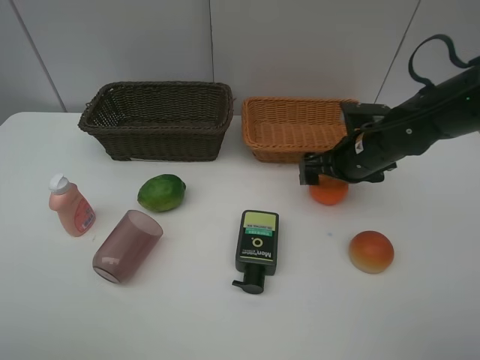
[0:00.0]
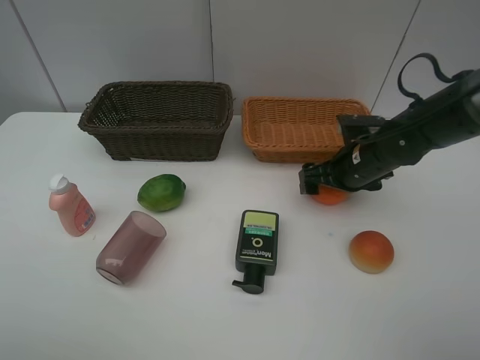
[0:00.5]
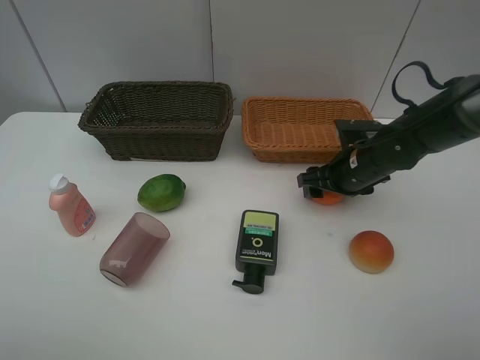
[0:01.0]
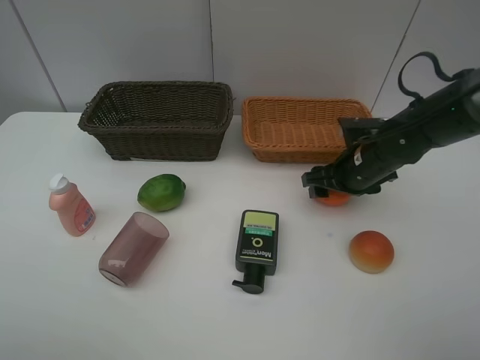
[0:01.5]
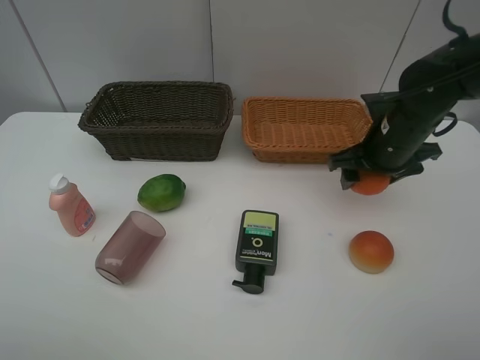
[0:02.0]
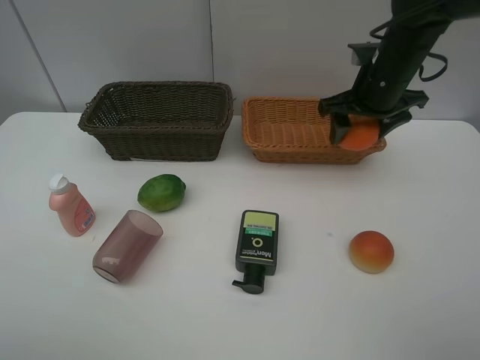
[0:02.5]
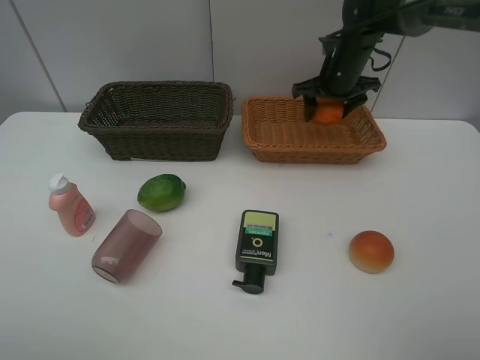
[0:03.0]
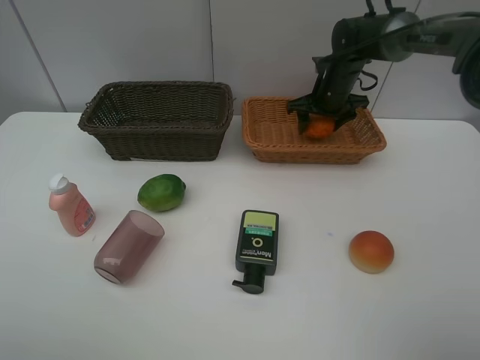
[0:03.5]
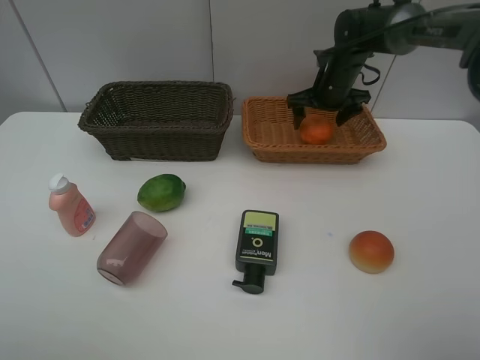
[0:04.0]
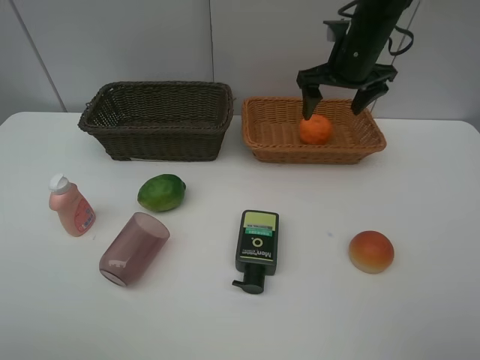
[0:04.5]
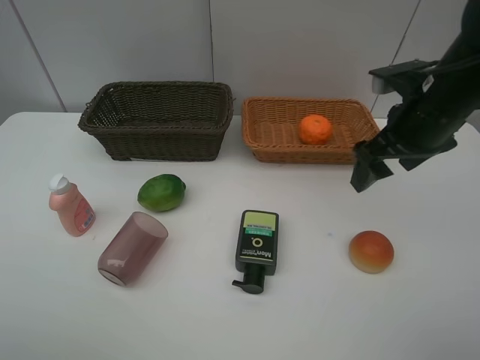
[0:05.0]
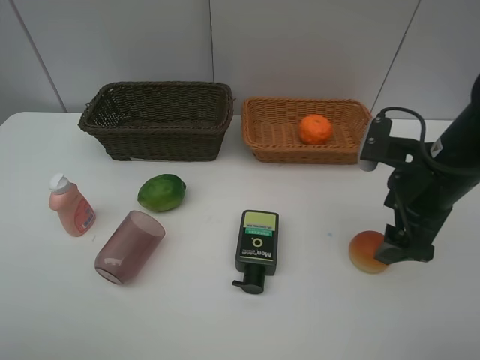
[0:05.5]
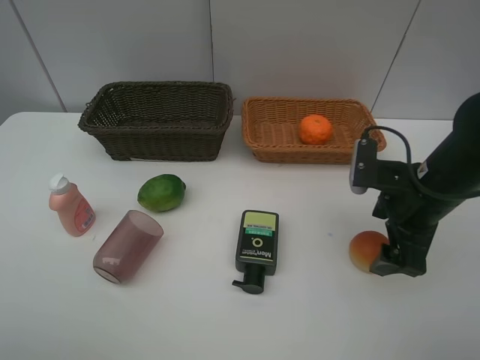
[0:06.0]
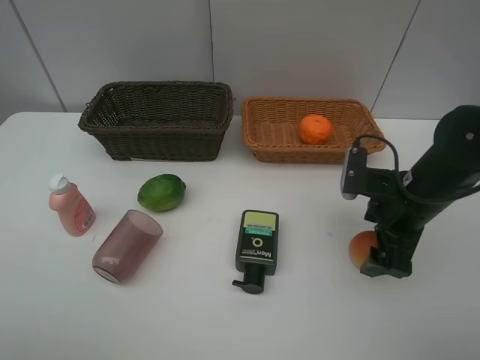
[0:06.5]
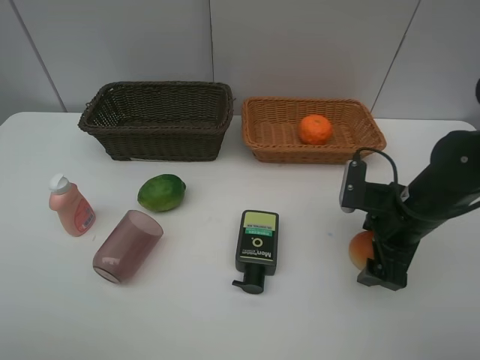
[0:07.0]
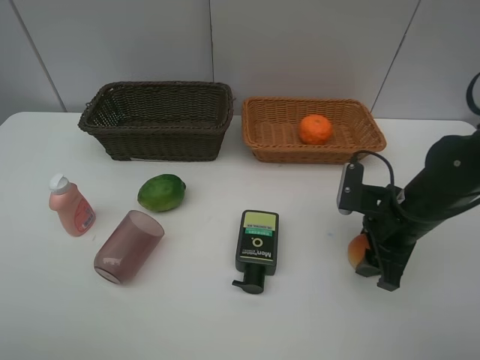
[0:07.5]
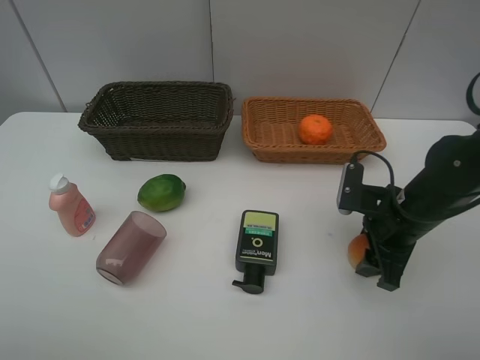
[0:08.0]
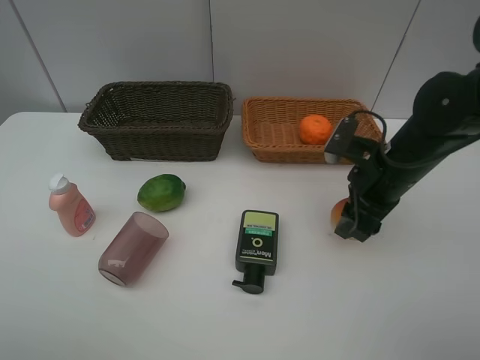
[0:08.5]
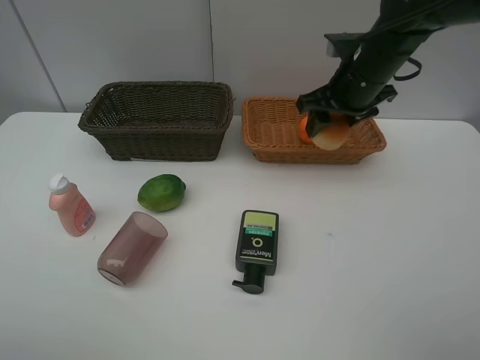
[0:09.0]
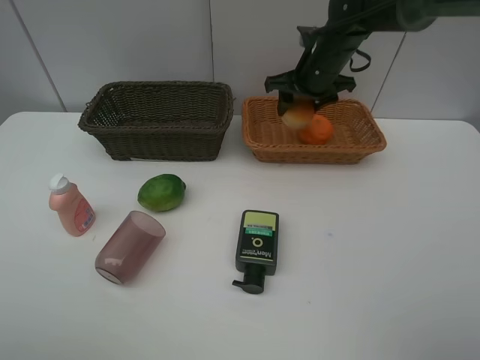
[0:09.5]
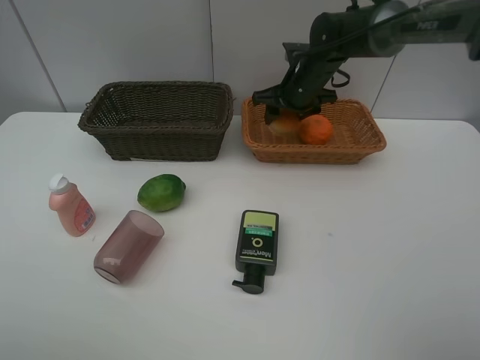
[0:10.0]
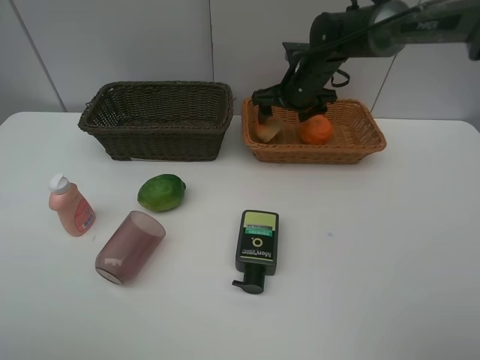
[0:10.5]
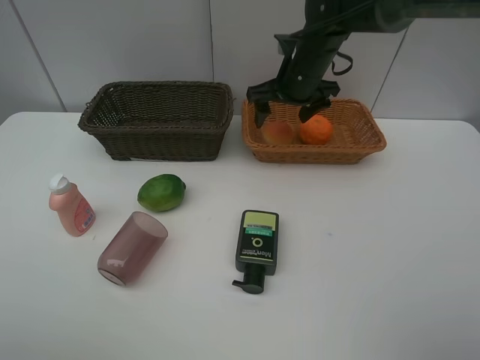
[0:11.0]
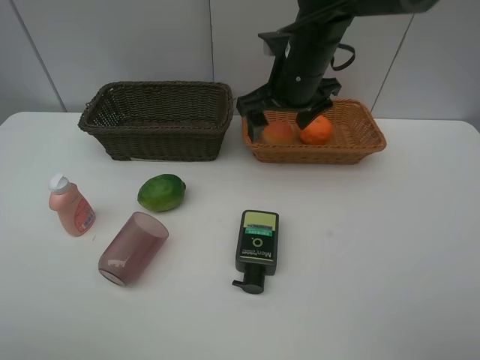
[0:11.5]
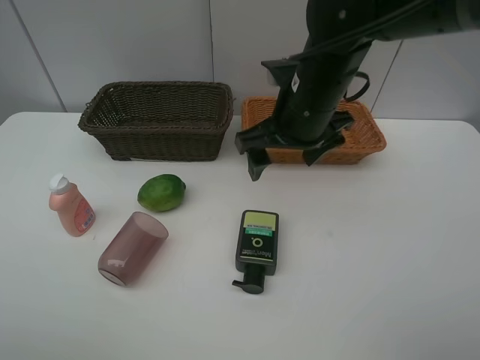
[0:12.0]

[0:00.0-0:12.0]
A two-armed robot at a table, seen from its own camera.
Task of the whole recording: place multiple objects separately in different baskets.
0.0 to 2.0 s: The right gripper is displaced upward by approximately 5 cm, and closes.
2.0 to 4.0 s: The right gripper heads forward, covering approximately 20 cm, and opens.
4.0 to 6.0 s: The right gripper is displaced backward by some 25 cm.
6.0 to 8.0 s: The right gripper closes.
8.0 to 10.0 s: The right gripper is displaced forward and to the left by about 25 cm.
10.0 to 12.0 s: The right gripper heads backward, covering about 15 cm, and opens its fingers.

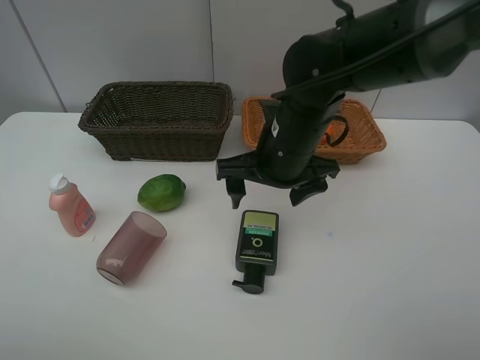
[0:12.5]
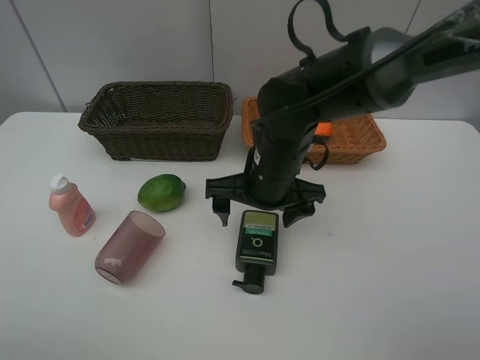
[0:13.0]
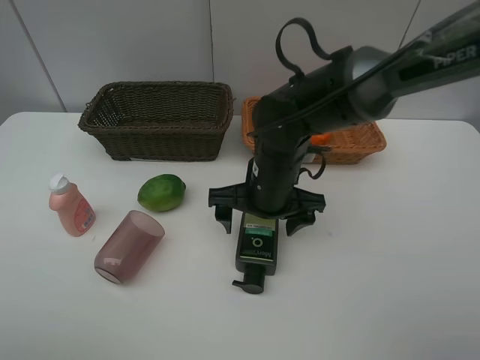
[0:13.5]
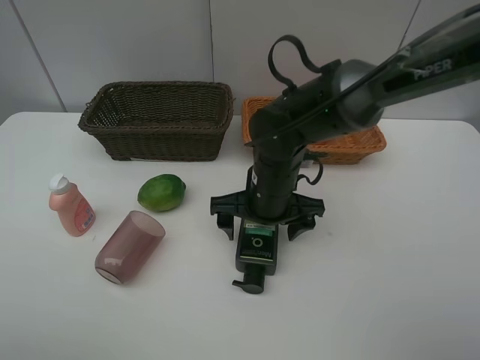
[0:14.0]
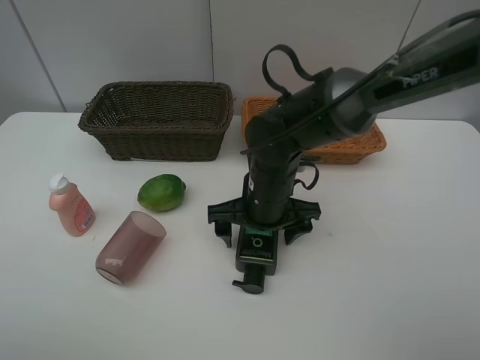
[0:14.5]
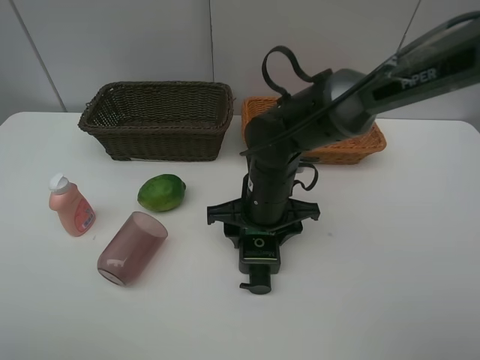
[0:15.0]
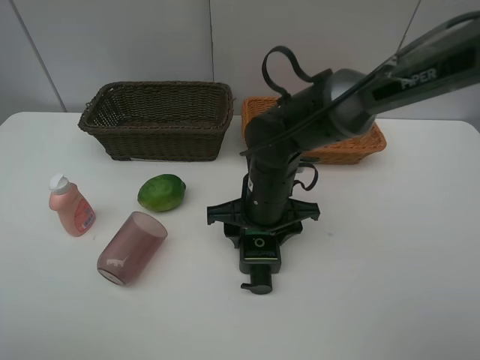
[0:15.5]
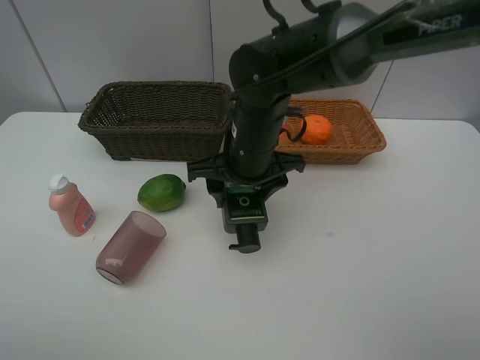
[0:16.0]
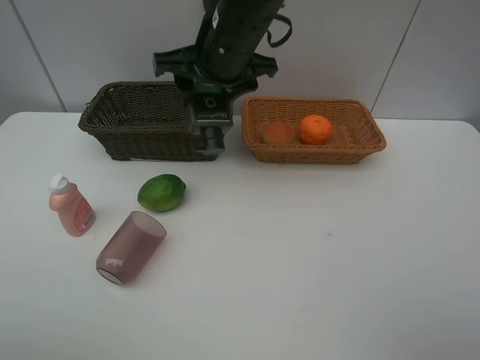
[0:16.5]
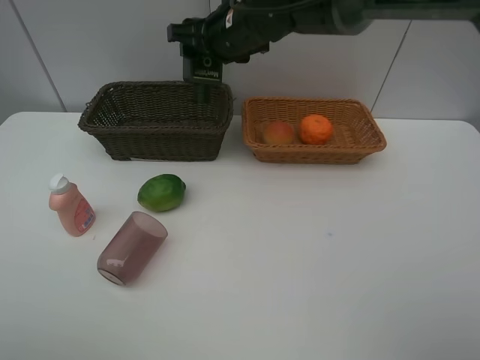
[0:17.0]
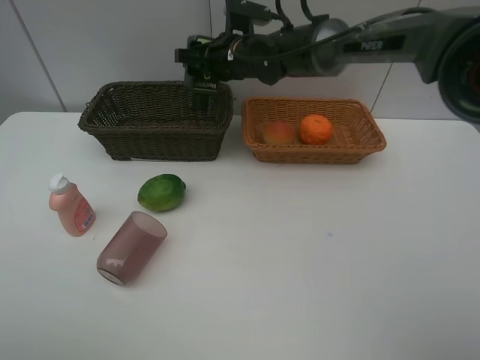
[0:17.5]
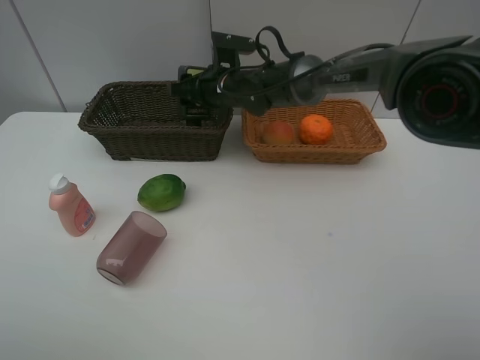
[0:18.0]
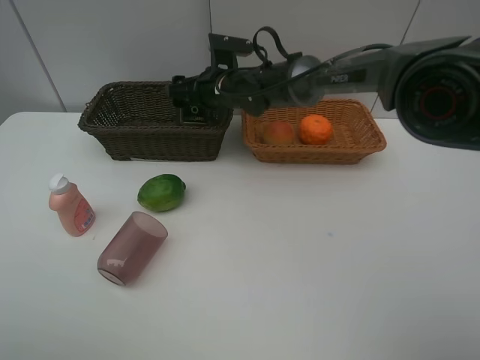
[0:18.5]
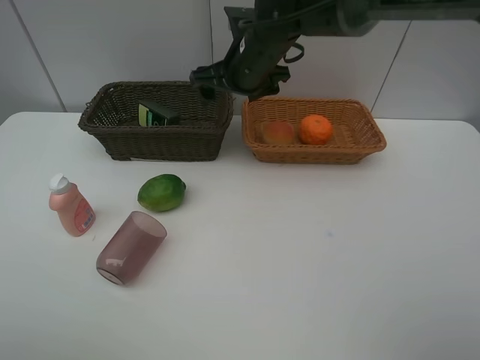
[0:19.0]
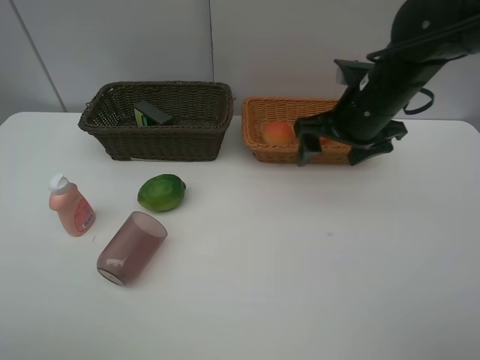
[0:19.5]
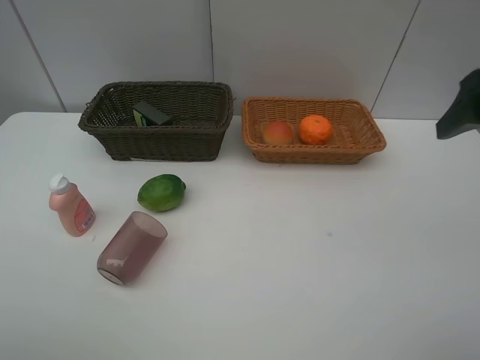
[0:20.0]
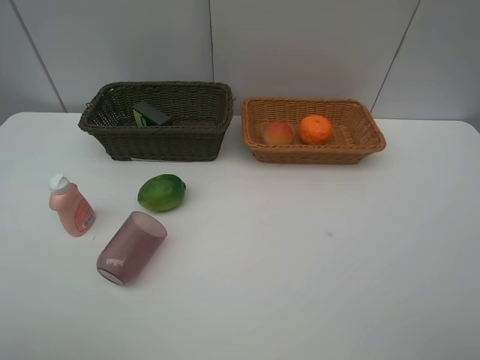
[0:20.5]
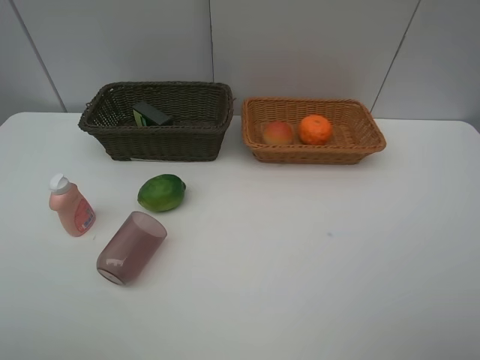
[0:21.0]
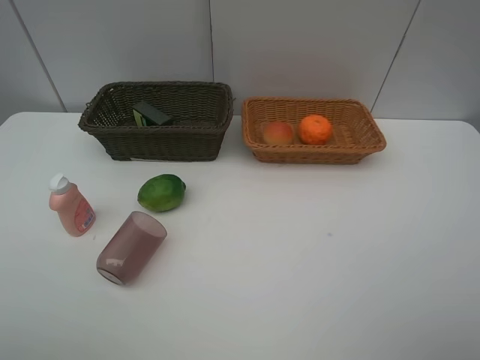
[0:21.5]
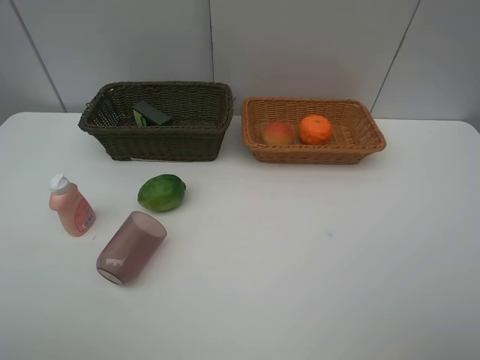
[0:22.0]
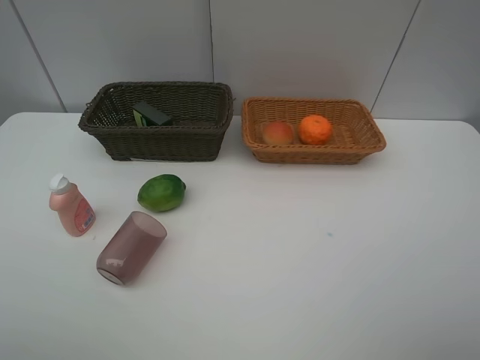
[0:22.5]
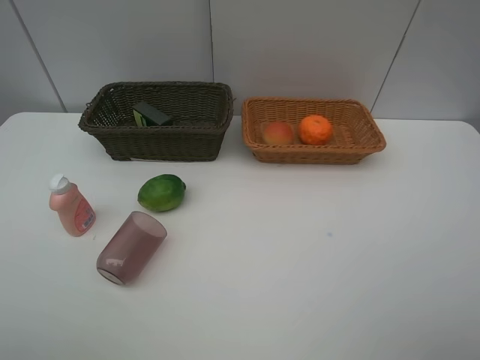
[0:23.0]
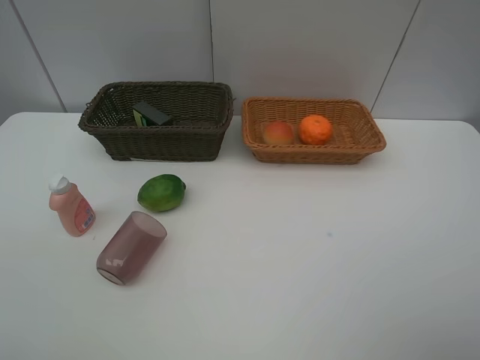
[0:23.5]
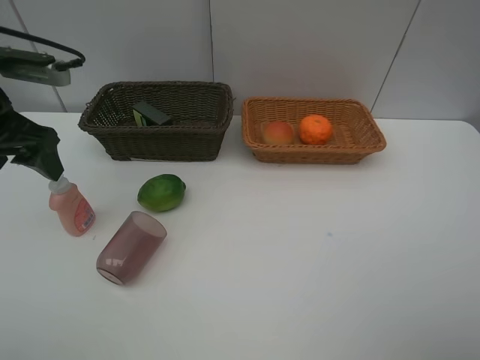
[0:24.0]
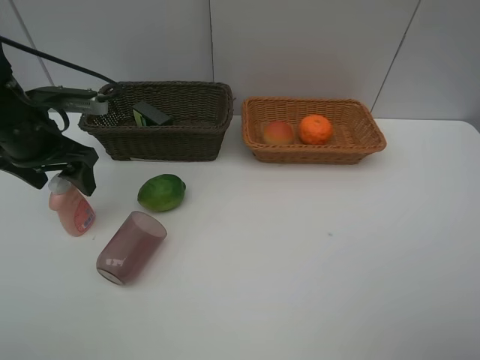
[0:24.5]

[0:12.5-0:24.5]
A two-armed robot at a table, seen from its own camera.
Task of the whole recording: place multiple objects separately in different baskets.
12.5 to 14.5 s: The right gripper goes some 5 cm downward.
14.5 to 16.5 s: The right gripper moves upward and forward, approximately 20 cm, and closes.
16.5 to 18.5 s: The right gripper moves downward and forward, roughly 15 cm, and opens.
18.5 to 20.5 s: The right gripper is displaced backward, to the right and upward by approximately 60 cm.
22.5 to 24.5 s: The left gripper moves forward, approximately 30 cm.

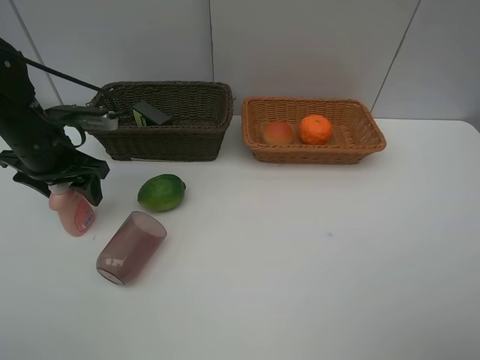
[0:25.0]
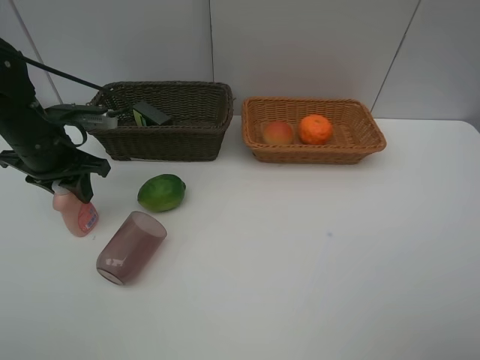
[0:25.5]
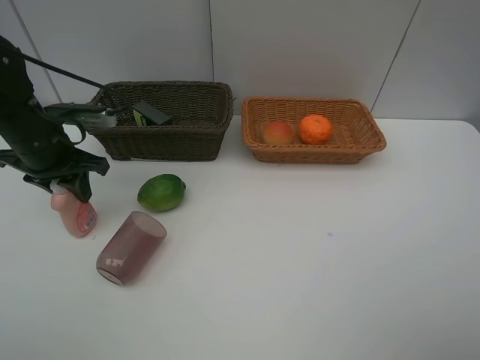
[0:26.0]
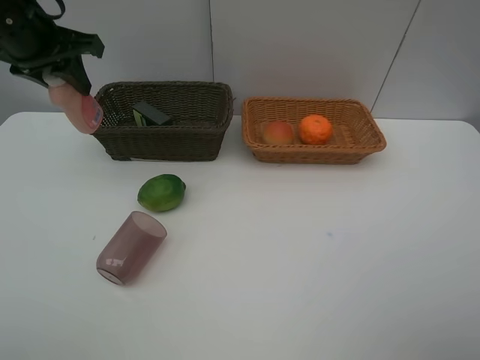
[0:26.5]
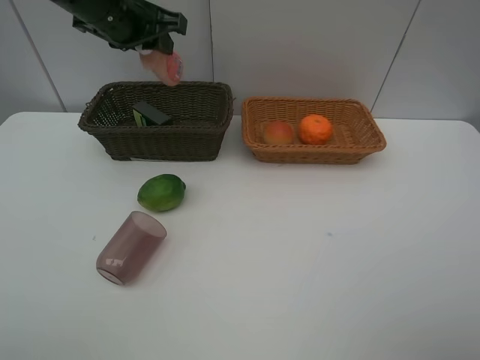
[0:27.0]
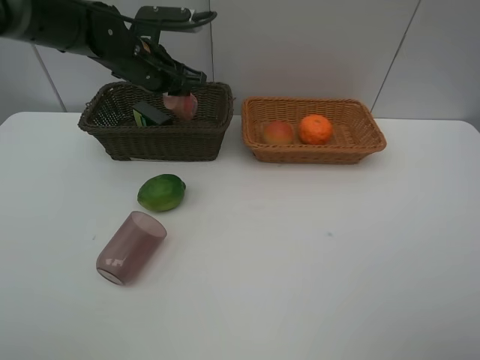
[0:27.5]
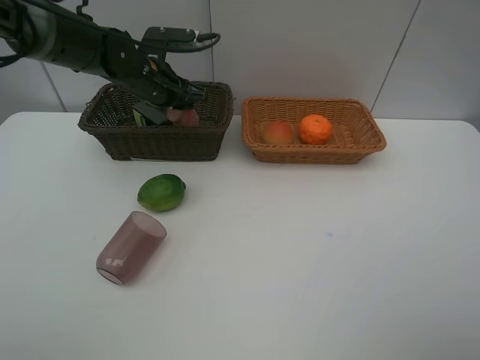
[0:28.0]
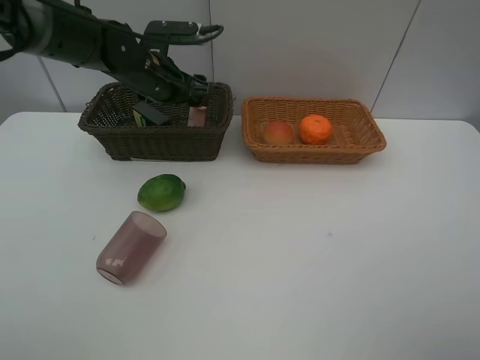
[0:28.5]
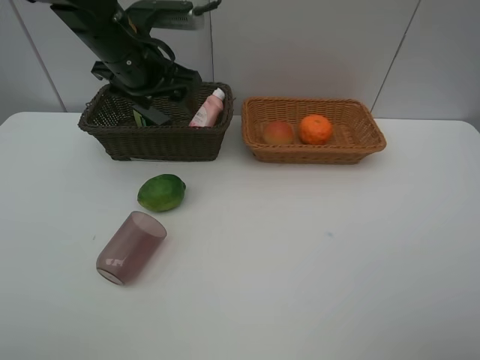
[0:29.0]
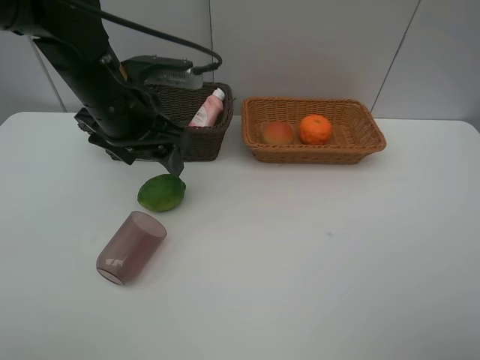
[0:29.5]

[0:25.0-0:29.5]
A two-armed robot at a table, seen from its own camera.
Task of the whole recording: place multiple objects separately in different baskets.
25.0 to 27.0 s: The left gripper shifts about 20 cm upward, to the right and forward, and closes up.
27.0 to 29.5 s: The left gripper shifts some 10 cm backward and downward, and opens its fingers.
